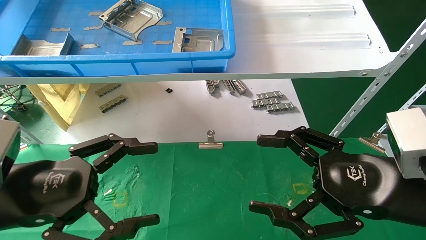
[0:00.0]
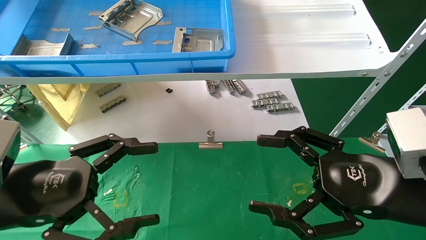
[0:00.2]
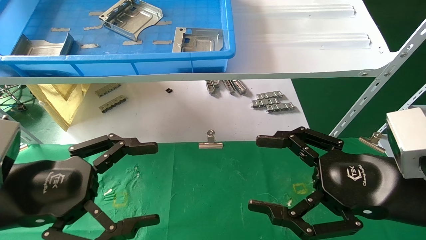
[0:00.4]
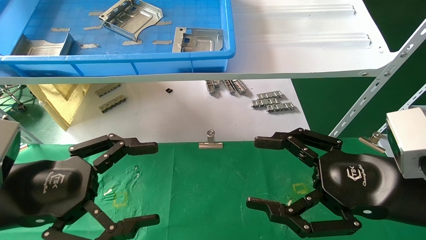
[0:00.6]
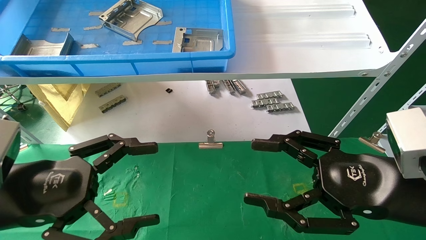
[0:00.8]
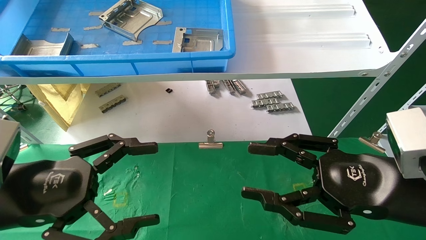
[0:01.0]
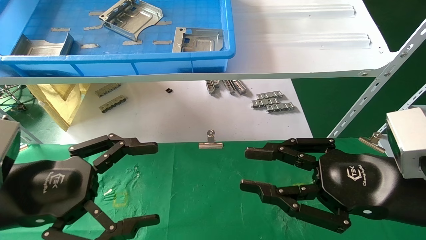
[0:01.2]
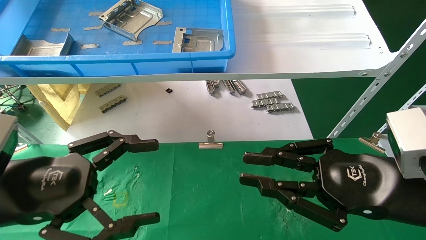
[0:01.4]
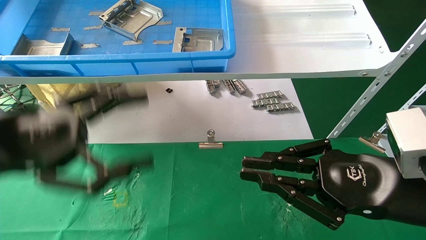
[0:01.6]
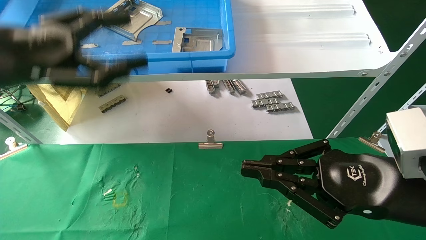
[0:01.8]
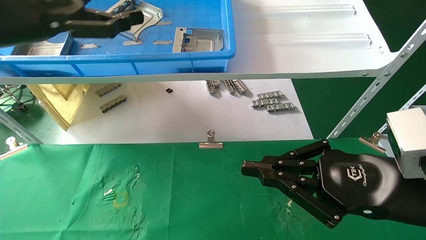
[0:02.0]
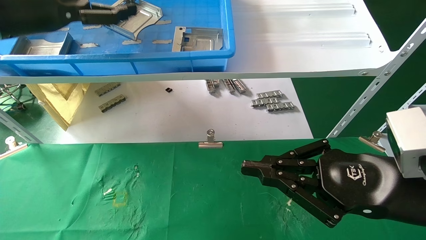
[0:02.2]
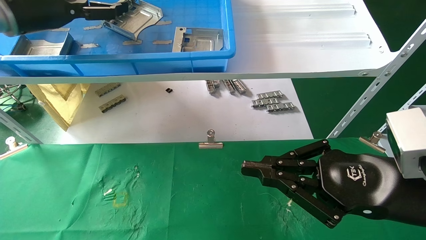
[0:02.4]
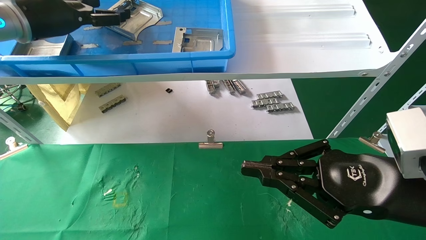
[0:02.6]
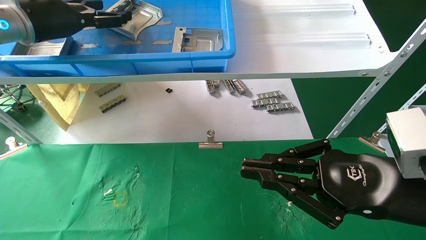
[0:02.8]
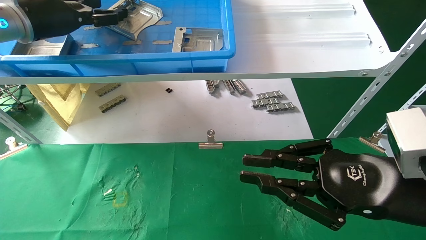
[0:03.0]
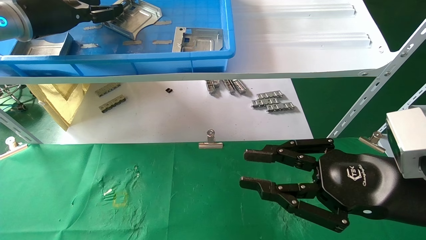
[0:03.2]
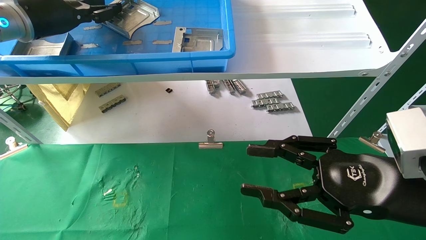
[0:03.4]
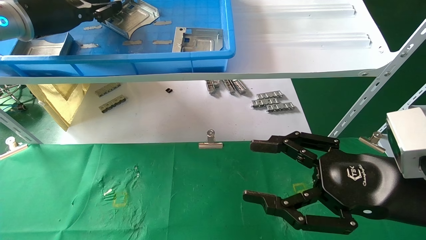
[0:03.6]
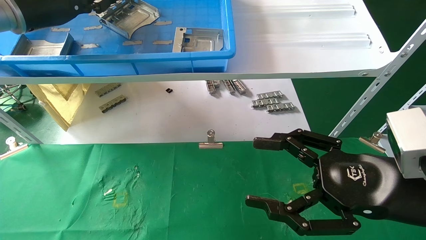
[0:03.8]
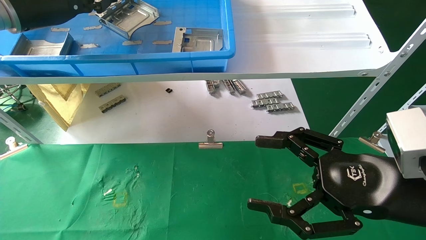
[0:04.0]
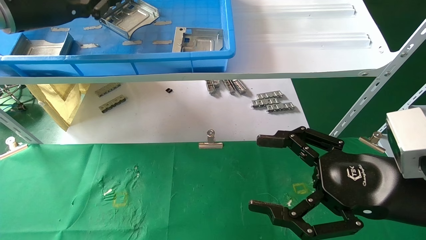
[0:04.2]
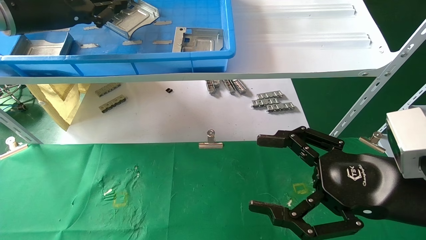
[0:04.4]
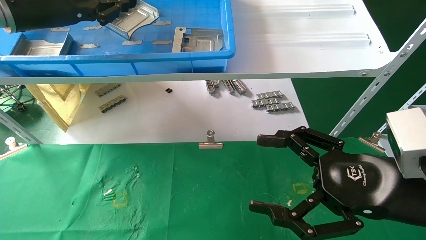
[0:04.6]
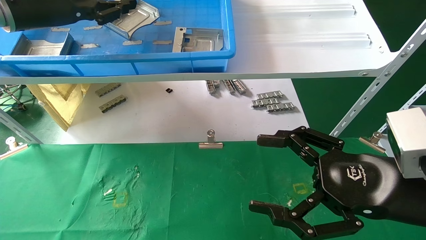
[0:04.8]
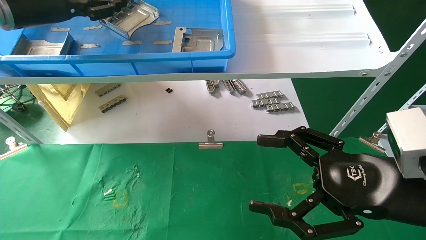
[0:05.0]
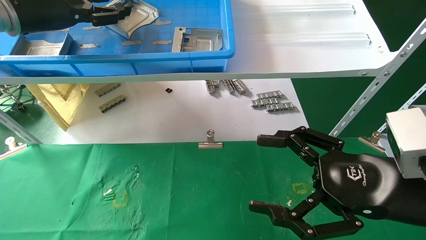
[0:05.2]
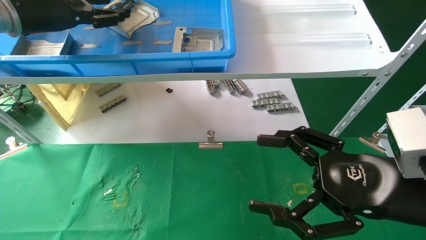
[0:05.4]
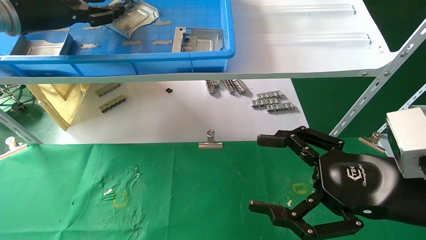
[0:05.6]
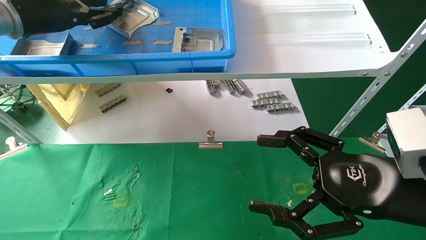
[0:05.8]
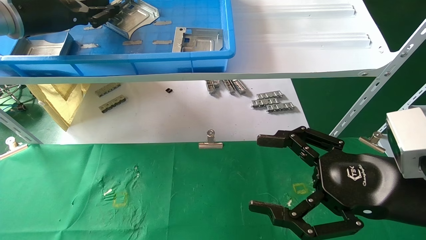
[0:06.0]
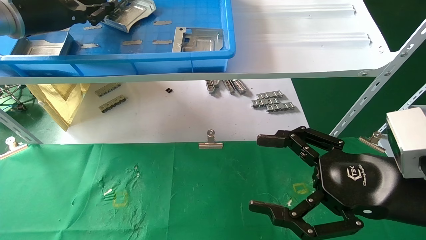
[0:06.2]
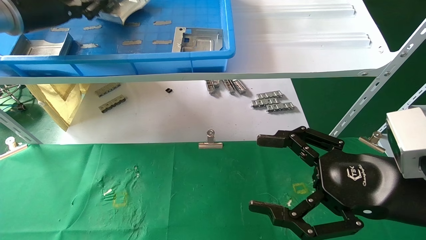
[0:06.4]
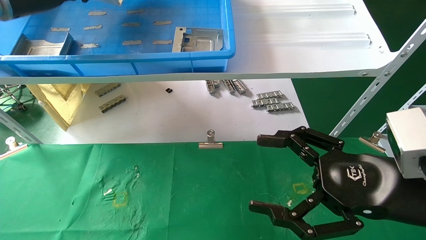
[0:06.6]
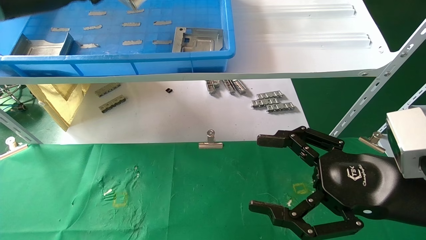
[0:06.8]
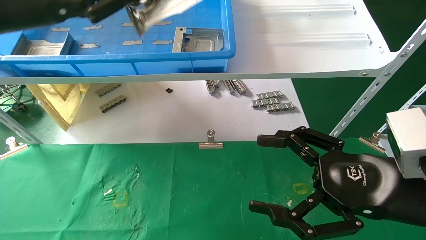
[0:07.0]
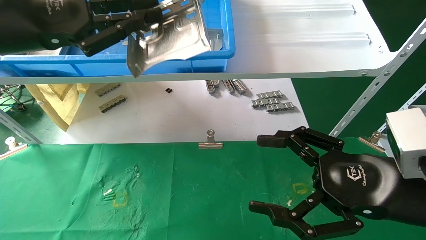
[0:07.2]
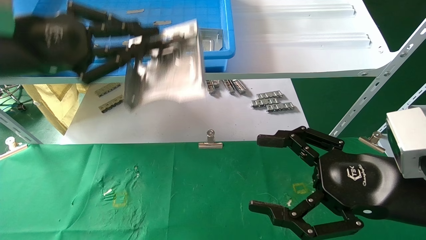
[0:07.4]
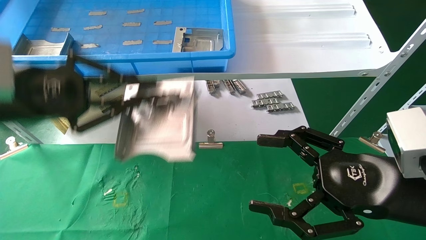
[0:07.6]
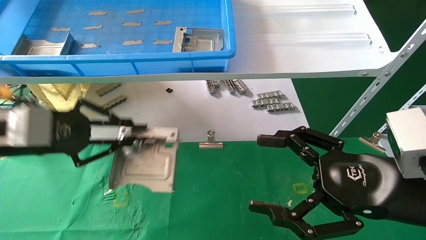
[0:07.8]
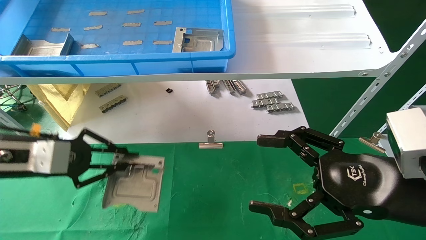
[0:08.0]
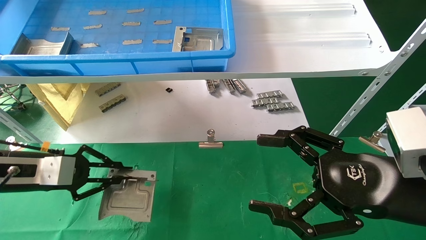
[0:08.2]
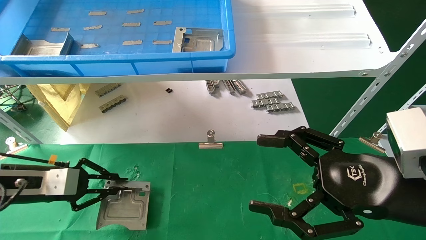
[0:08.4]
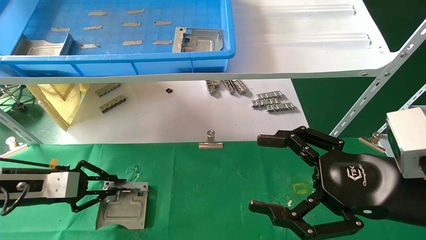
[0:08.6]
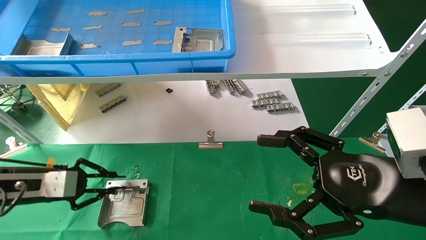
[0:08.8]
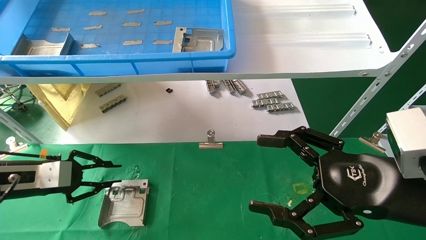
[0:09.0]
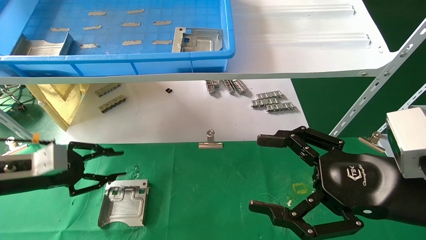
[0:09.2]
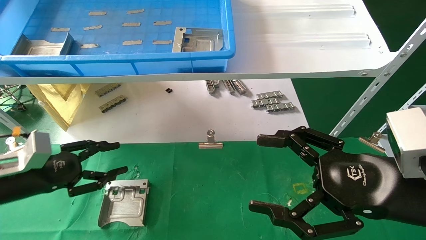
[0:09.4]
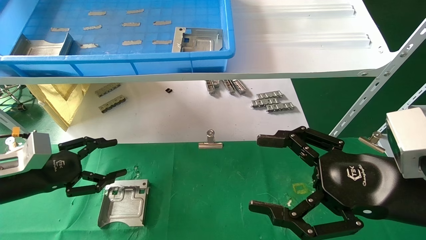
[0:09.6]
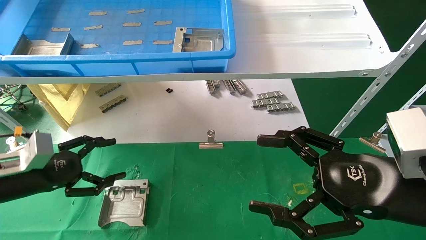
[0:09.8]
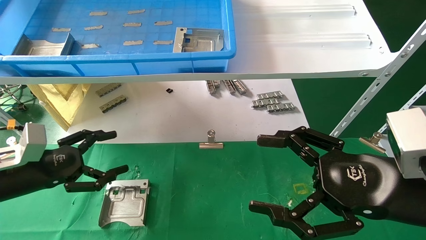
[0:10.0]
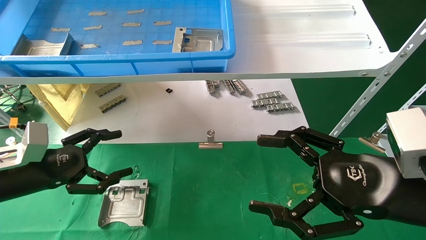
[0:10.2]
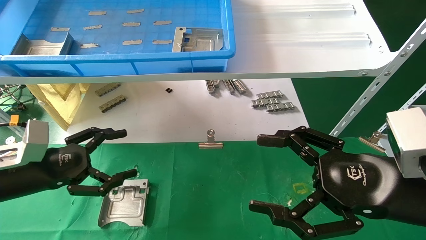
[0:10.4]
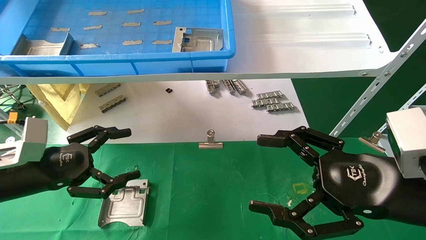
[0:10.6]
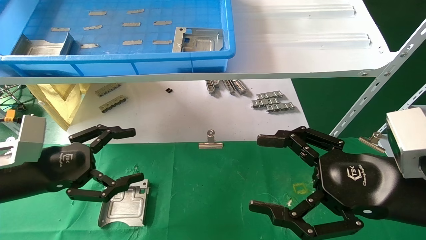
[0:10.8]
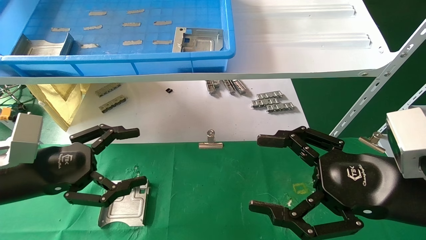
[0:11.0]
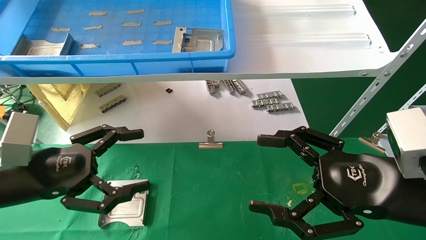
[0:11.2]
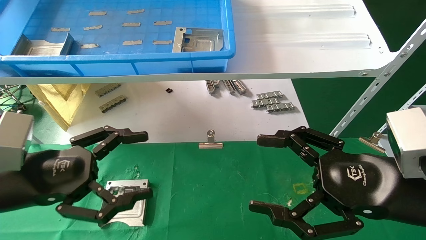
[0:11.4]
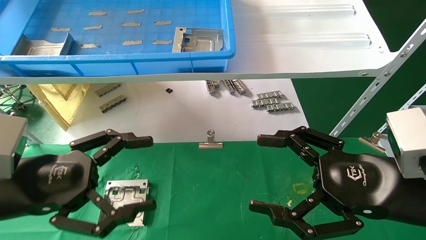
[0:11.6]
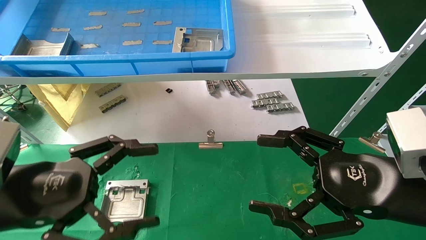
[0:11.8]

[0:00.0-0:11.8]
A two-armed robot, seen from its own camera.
Task of the whole recording: use the mechanical arm to pick up the parts and place them on the table.
Step, 0:02.0 to 0:07.0: Pick up the hard drive bracket from the feeding area.
Step, 0:07.2 to 0:09.4: Place the hard drive bracket into the box.
0:00.0 to 0:01.4: The right gripper closes up.
0:01.4 to 0:03.0: The left gripper goes roughly 30 cm forward and upward.
0:03.0 to 0:04.4: The left gripper closes up, while the right gripper opens.
0:04.4 to 0:06.0: There are only small adjustments of the grippers.
0:06.0 to 0:07.4: The left gripper is displaced backward and downward by about 15 cm.
0:07.4 to 0:08.8: The left gripper travels downward by some 20 cm.
0:08.8 to 0:10.4: The left gripper ends up about 5 cm from where it was, and opens its fingers.
0:10.4 to 0:11.8: The left gripper heads backward and to the right, covering about 10 cm.

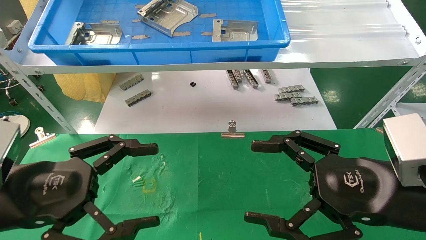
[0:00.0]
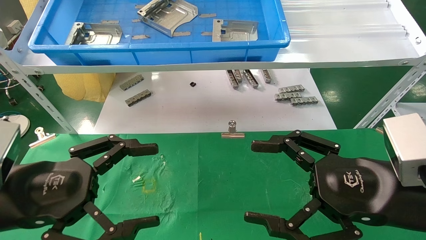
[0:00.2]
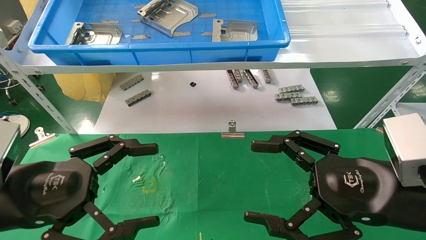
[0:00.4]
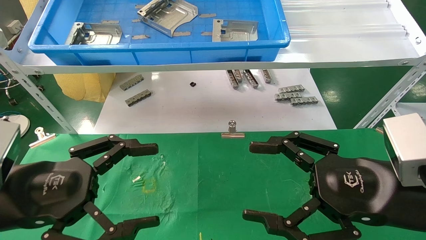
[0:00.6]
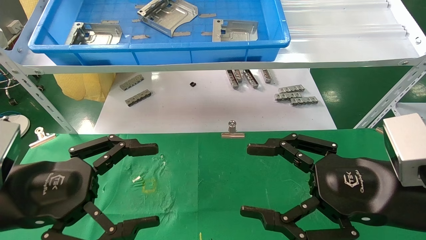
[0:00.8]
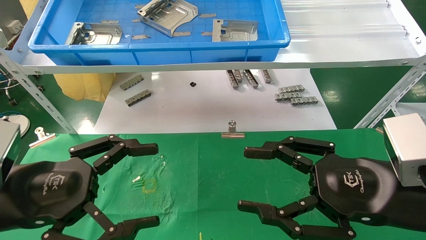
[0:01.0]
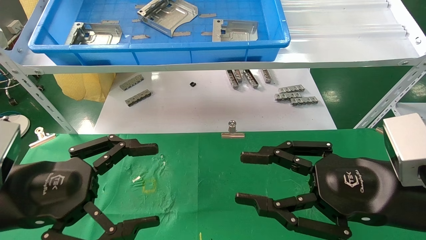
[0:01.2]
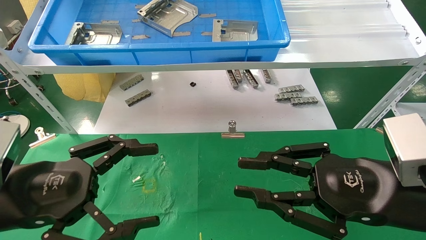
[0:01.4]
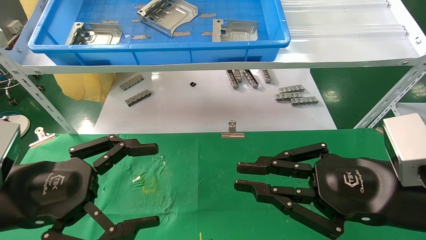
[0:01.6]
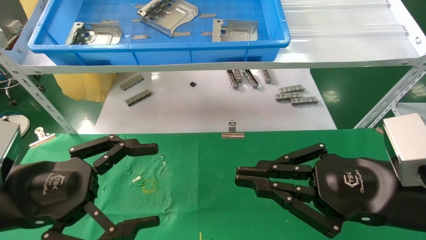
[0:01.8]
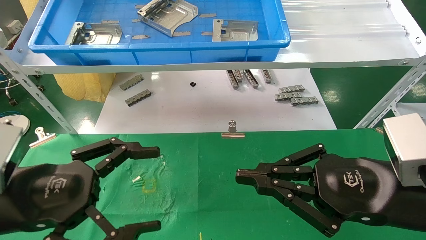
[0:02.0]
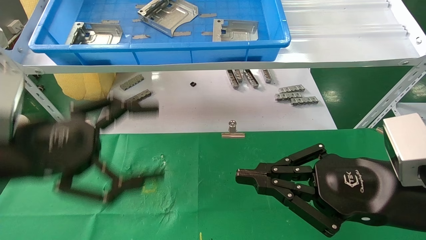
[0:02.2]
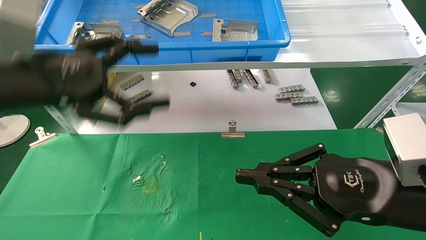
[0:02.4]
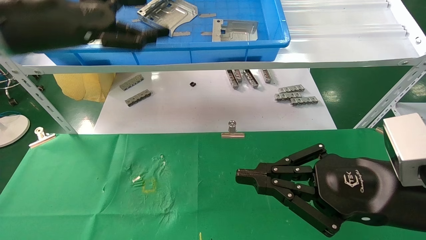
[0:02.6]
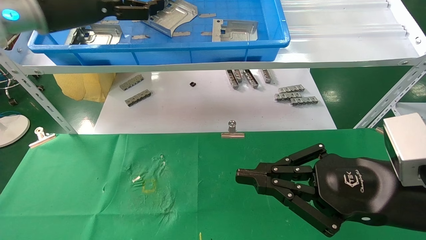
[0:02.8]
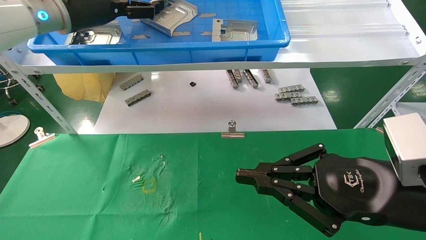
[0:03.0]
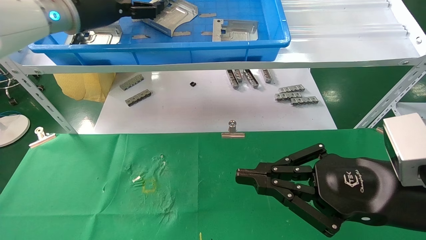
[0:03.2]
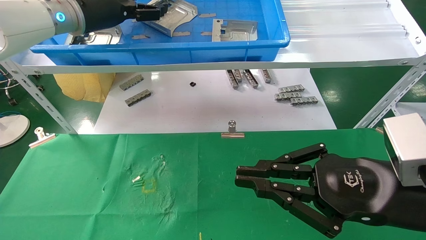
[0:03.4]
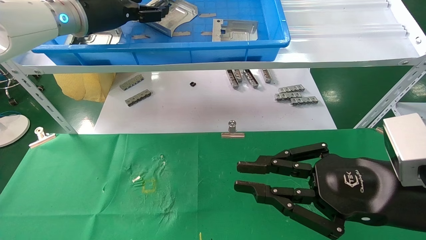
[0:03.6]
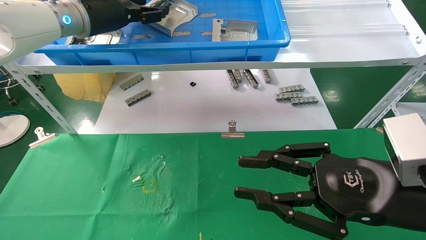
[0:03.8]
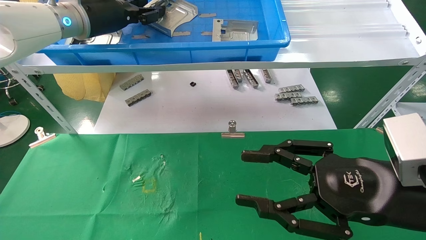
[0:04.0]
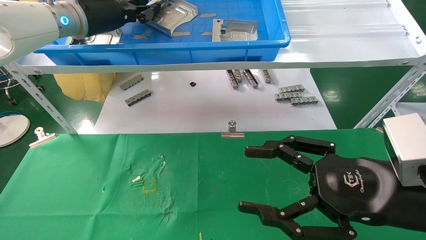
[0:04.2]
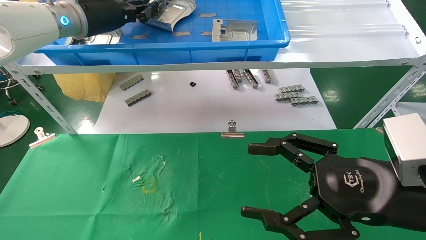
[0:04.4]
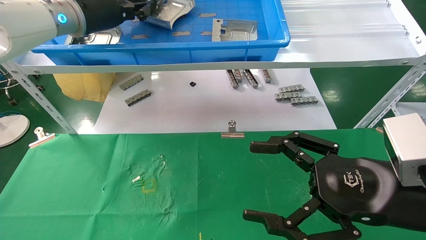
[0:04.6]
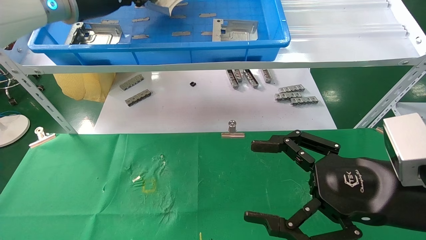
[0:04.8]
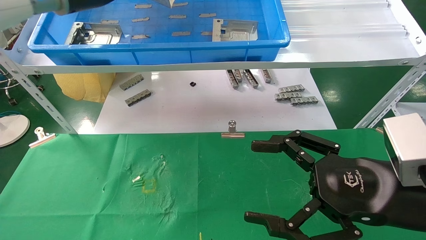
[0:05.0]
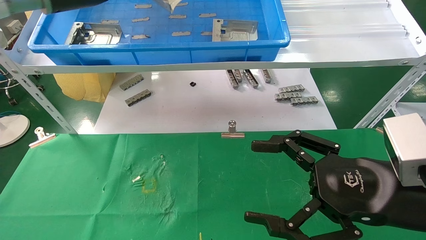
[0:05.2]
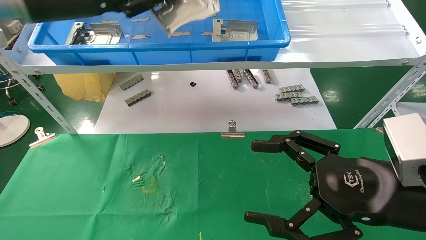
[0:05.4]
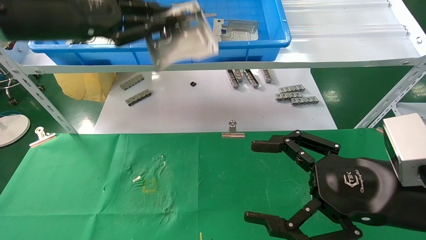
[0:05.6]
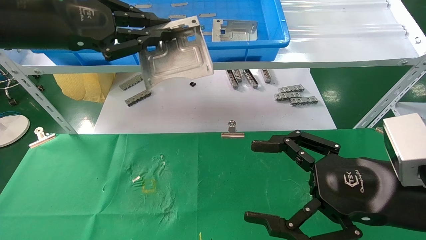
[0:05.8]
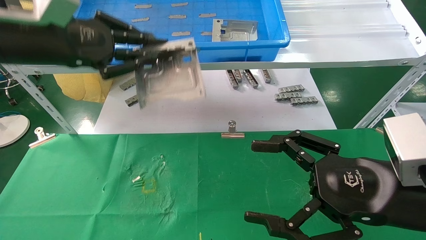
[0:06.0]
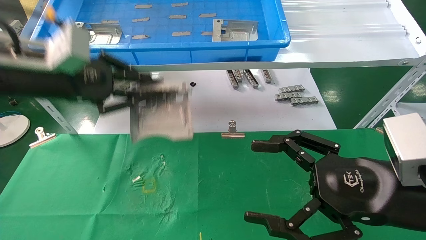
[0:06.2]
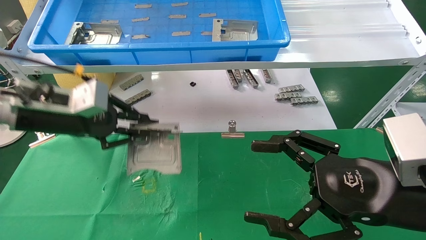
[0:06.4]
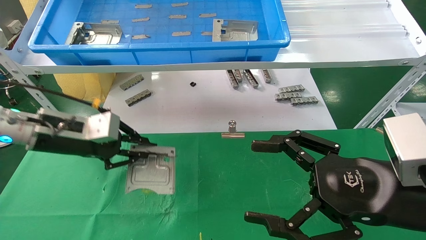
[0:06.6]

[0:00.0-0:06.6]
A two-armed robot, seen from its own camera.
Task of the whole recording: use the mechanical arm to pick up the parts and place them on the table.
Step, 0:02.4 to 0:04.4: Pick up the hard drive bracket from the feeding area.
0:00.0 to 0:01.6: The right gripper closes up.
0:01.6 to 0:03.2: The left gripper is displaced forward and upward by approximately 30 cm.
0:03.2 to 0:05.0: The left gripper closes, while the right gripper opens.
0:05.0 to 0:06.6: The left gripper goes approximately 20 cm downward.
